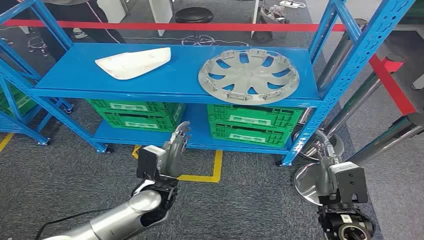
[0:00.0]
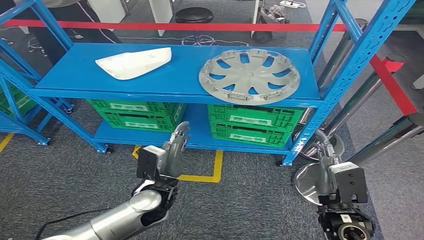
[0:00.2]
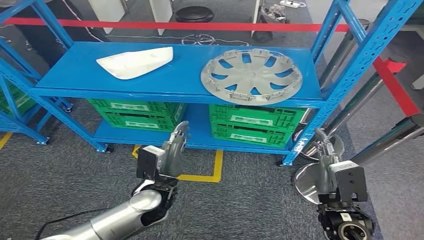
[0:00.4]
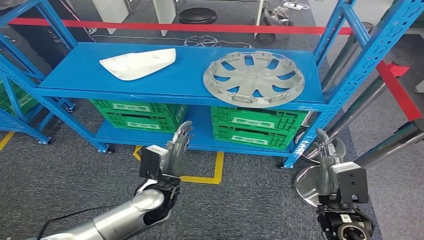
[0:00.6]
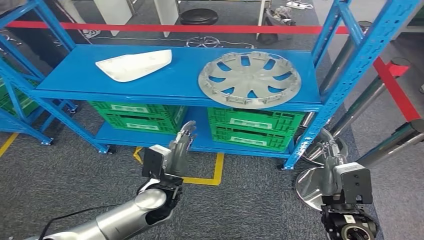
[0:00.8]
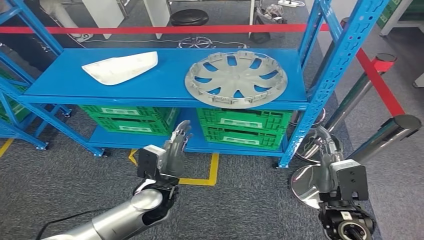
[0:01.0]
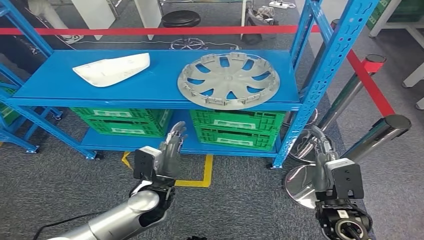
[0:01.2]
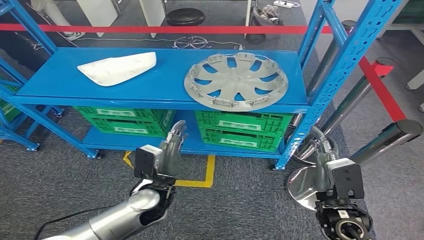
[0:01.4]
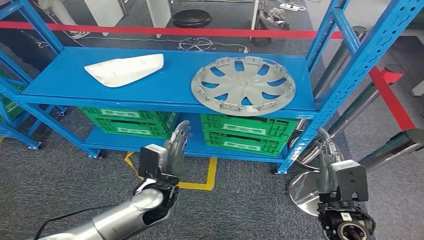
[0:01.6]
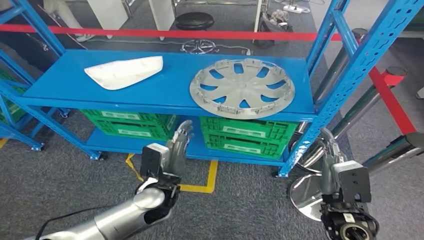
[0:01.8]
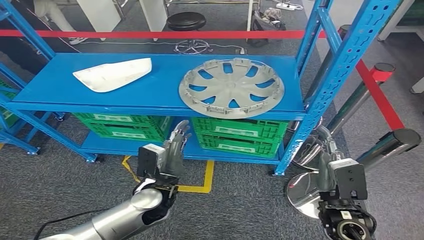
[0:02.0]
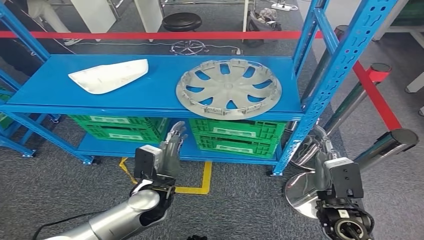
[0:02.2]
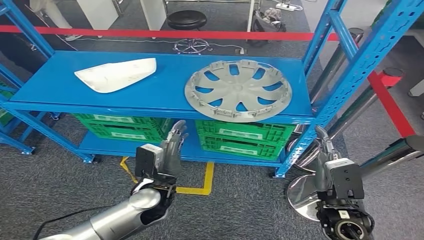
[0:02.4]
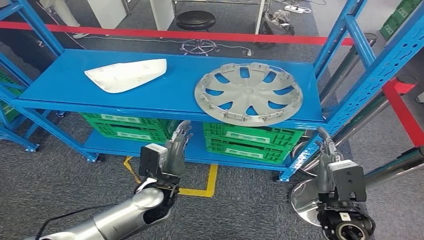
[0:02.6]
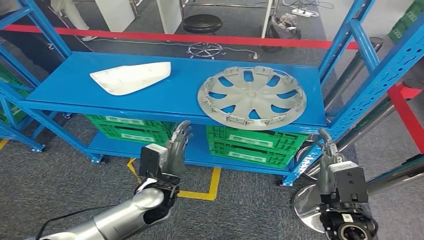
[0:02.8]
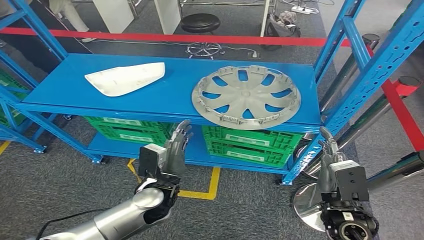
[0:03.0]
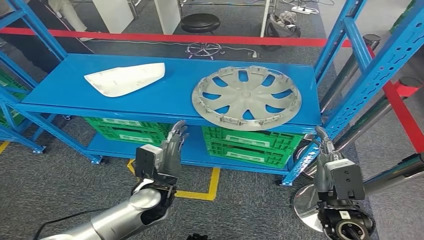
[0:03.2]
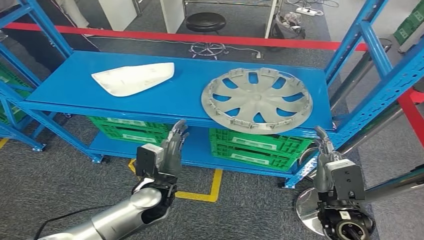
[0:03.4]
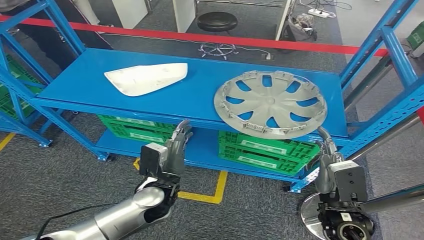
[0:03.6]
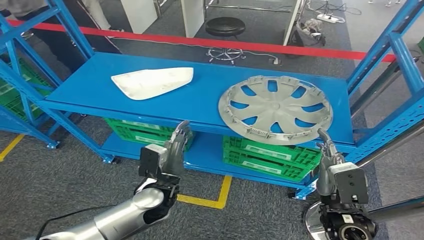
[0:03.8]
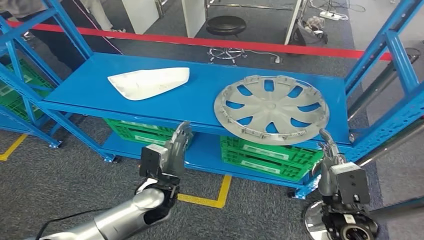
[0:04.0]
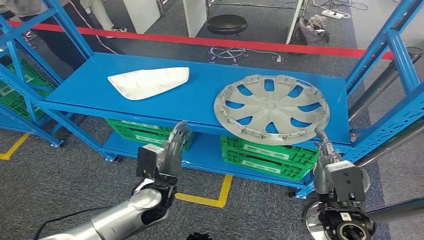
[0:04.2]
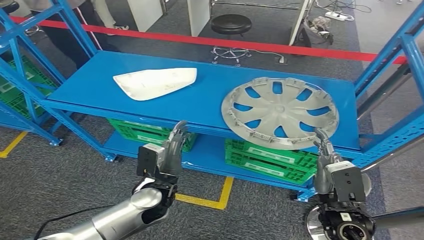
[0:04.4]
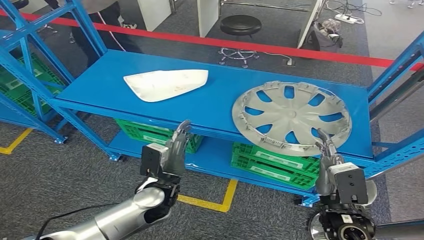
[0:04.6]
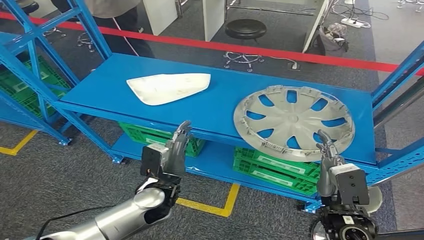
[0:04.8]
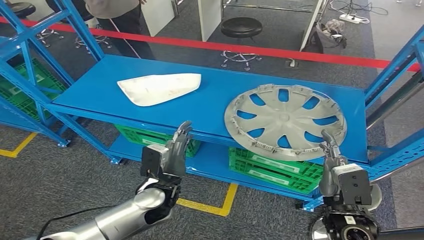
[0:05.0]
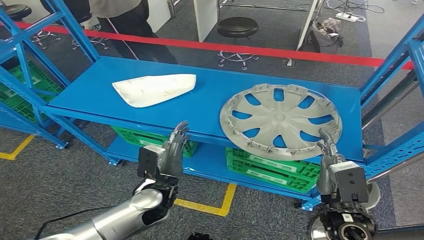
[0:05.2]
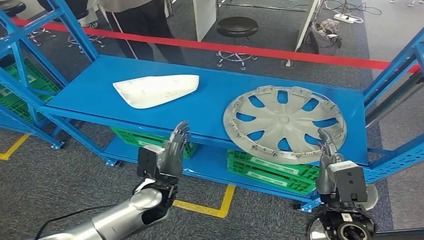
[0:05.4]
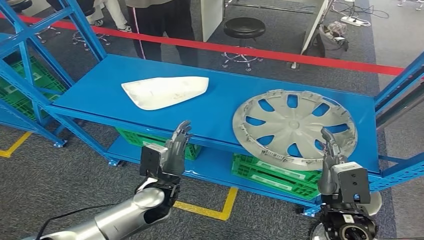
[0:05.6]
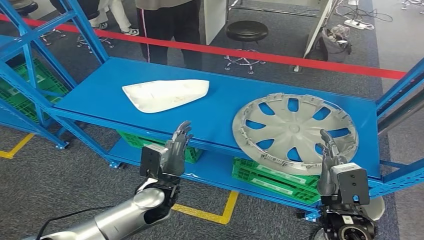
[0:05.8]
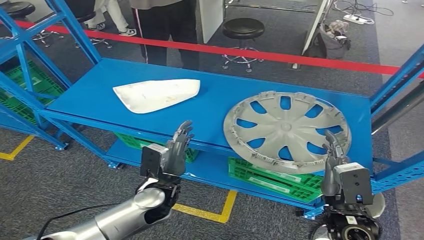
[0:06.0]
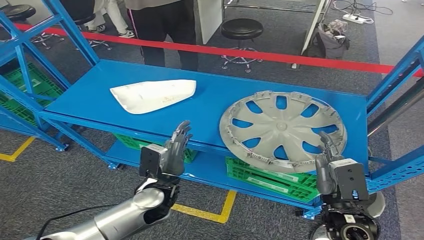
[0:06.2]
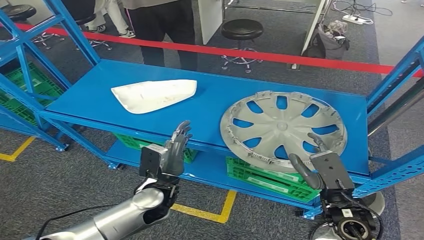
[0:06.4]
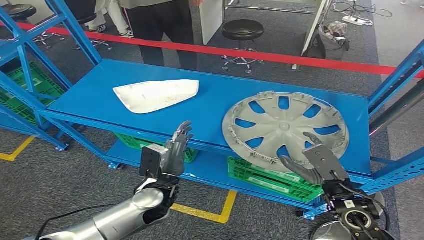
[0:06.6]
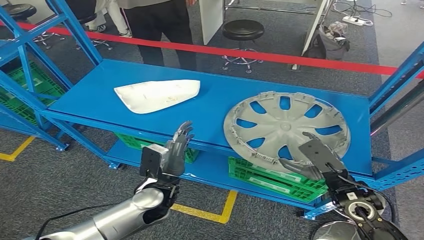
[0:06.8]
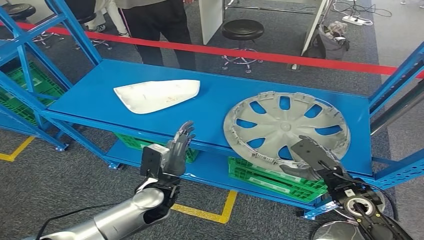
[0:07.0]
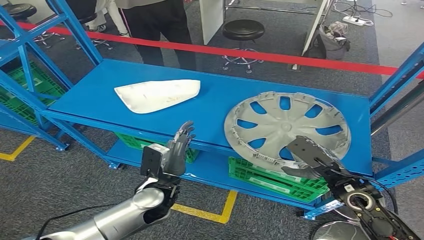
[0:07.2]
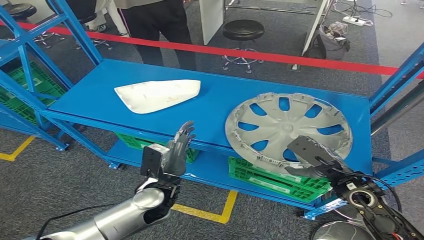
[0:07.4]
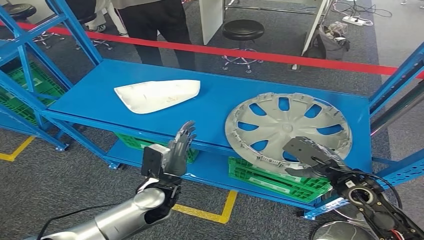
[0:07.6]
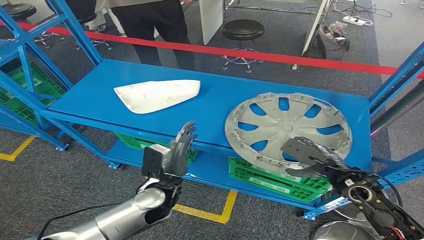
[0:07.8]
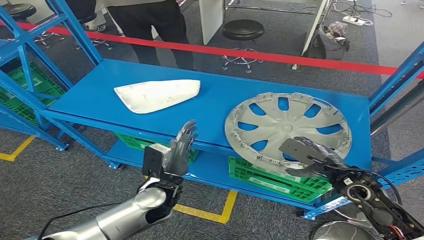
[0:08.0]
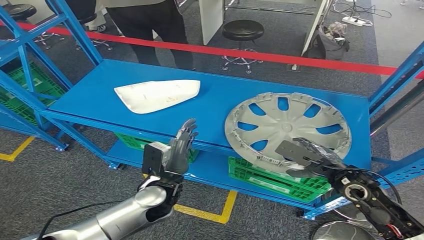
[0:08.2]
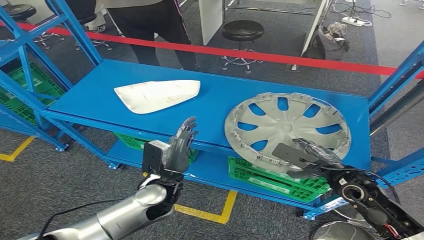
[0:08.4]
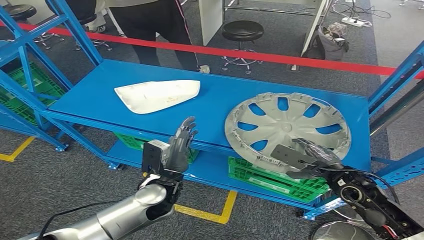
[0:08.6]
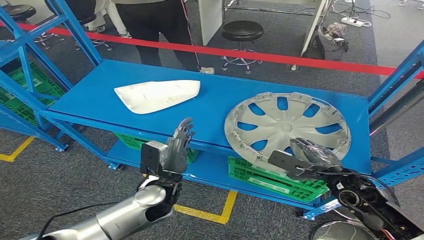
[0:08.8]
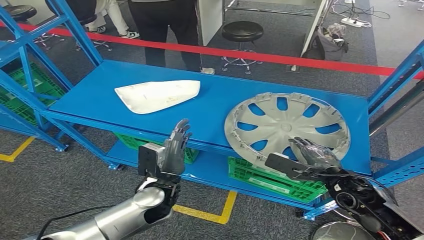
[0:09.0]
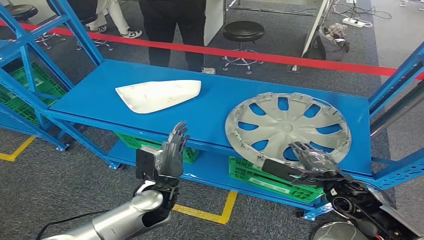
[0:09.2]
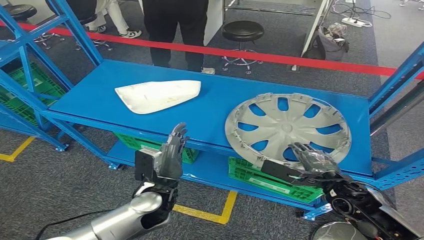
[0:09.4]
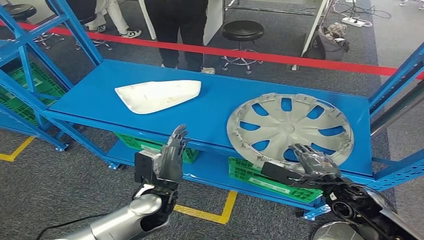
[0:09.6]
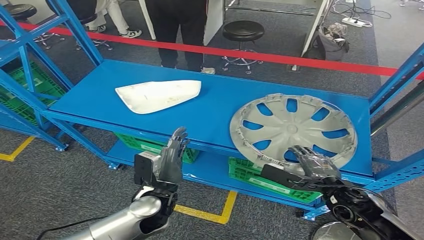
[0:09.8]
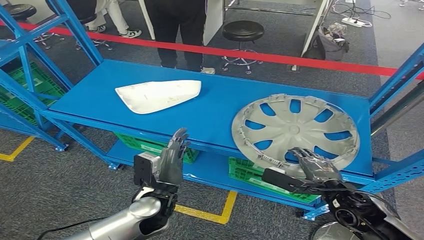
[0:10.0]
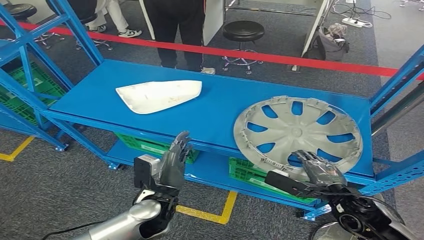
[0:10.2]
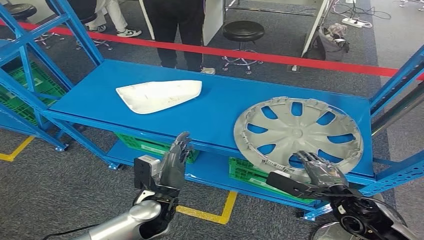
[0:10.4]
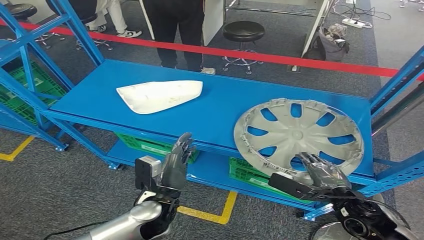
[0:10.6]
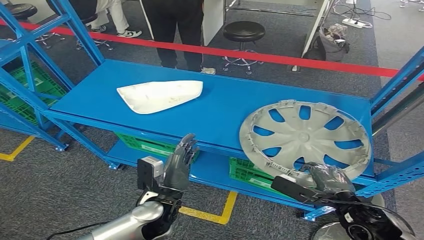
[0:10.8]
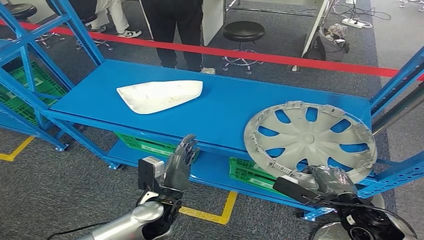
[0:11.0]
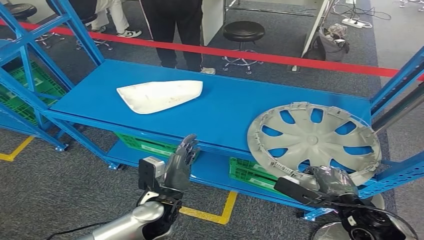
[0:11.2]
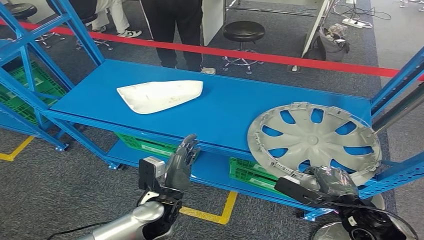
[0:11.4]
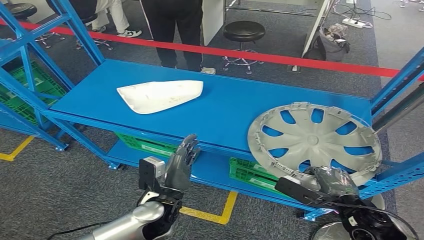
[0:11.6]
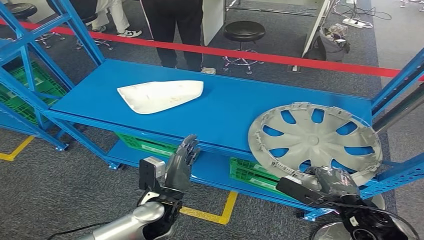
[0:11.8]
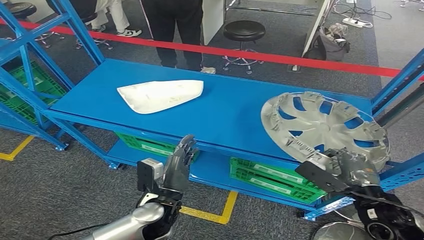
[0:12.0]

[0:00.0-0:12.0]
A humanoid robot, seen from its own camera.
0:06.0 to 0:07.6: The right hand is displaced forward by roughly 10 cm.
0:09.0 to 0:10.4: The right hand heads backward, covering about 5 cm.

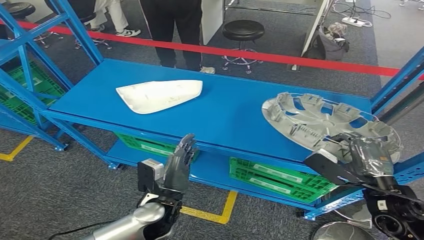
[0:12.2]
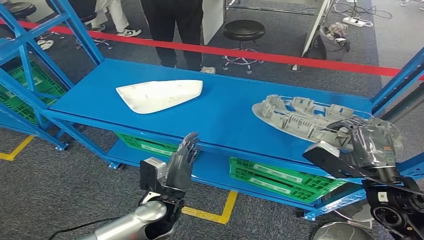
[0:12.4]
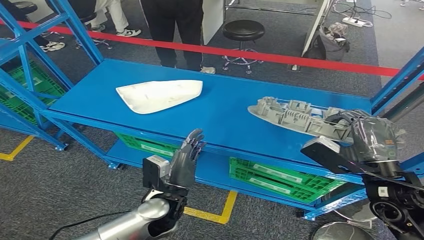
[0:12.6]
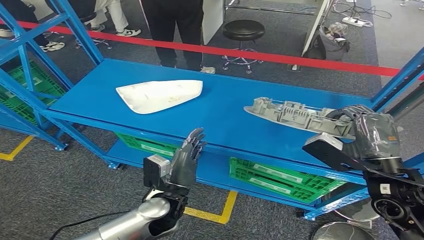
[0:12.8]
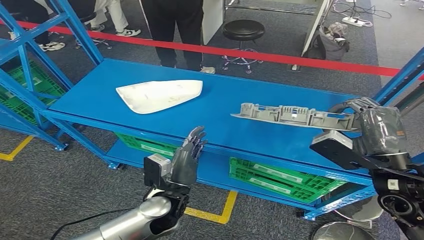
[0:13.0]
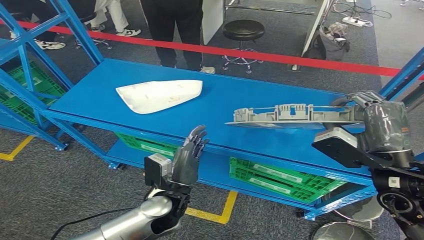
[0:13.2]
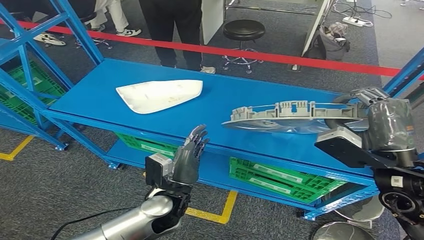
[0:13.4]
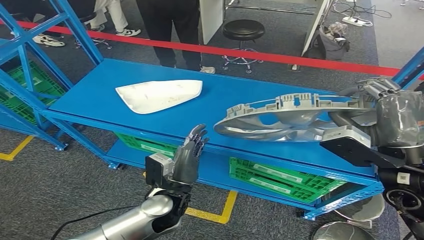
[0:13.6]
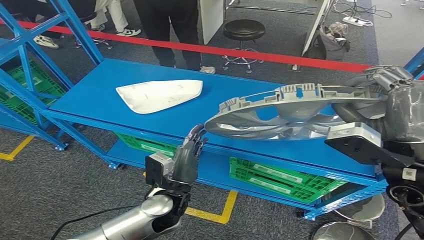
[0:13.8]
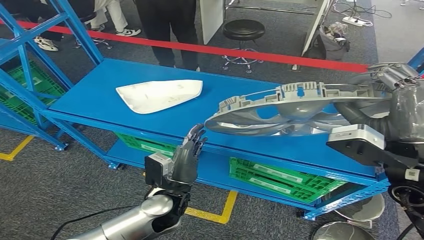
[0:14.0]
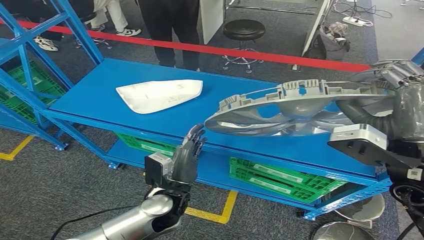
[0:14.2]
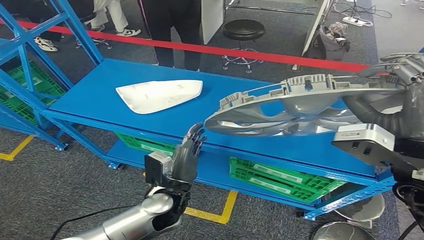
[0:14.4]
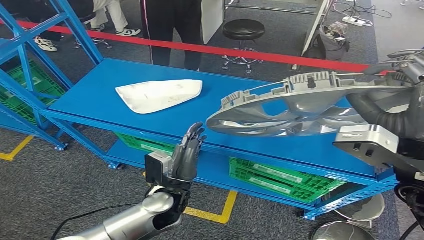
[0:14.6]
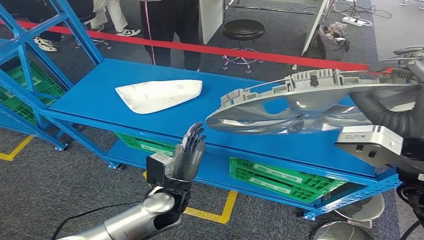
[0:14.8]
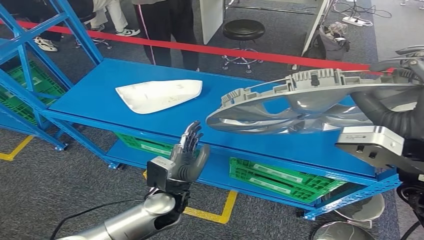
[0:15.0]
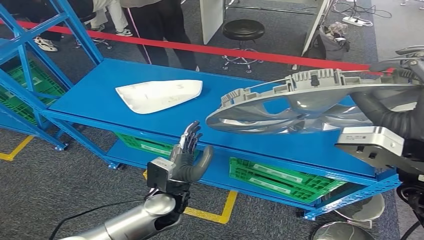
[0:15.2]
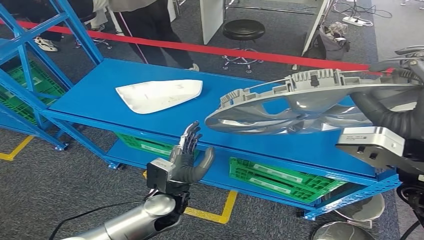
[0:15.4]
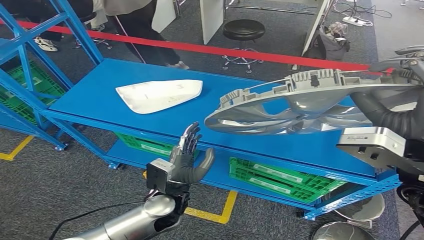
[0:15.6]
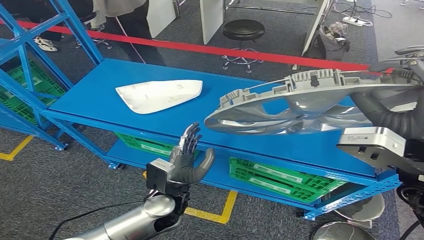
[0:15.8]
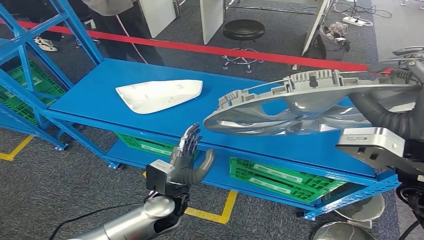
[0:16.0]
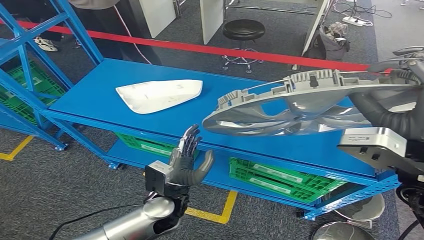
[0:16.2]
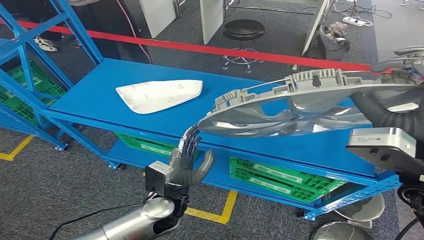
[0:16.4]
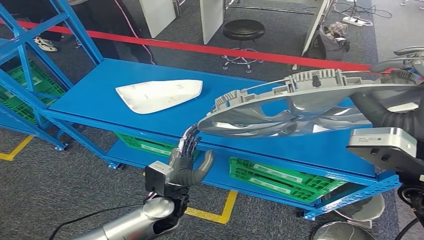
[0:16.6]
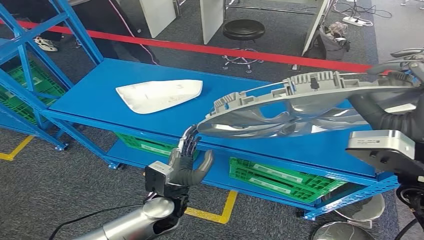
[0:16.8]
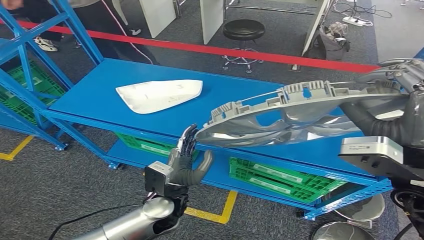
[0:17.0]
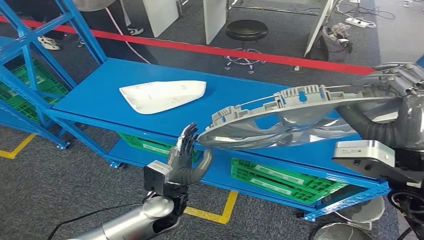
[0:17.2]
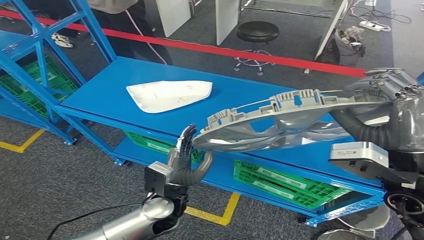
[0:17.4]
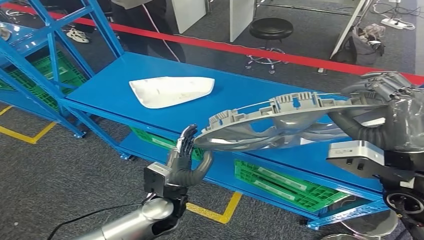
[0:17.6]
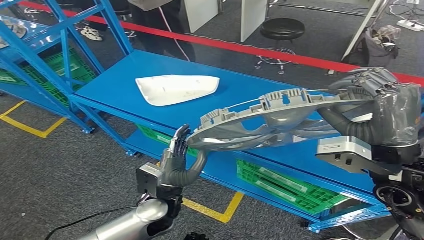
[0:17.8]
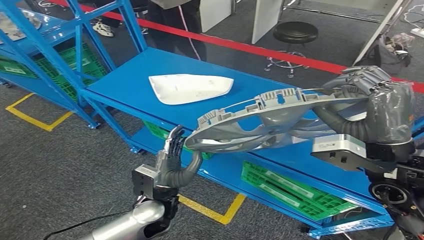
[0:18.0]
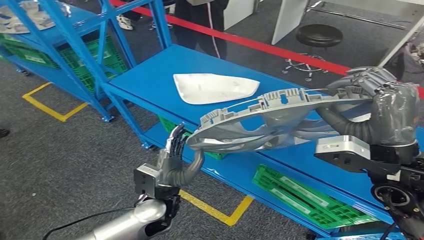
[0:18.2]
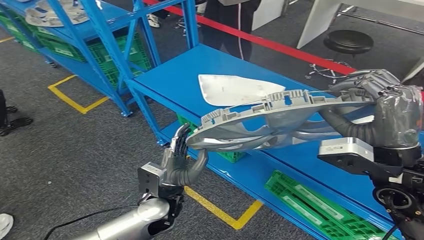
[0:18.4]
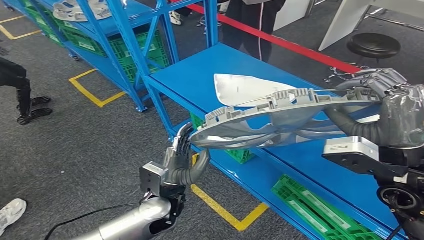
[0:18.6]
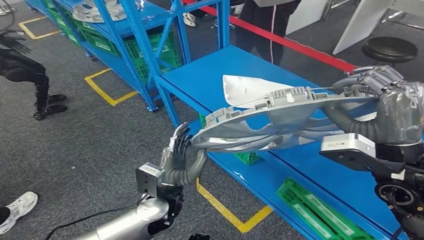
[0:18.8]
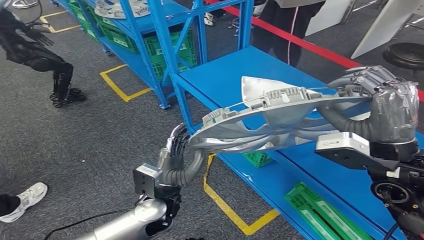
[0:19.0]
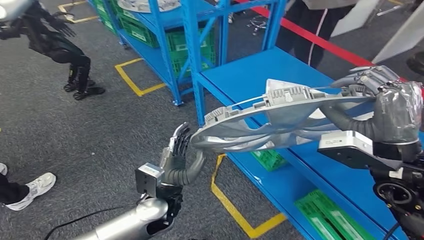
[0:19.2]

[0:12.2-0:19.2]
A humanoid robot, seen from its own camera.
Step, 0:12.2 to 0:14.2: Pick up the small component from the shelf.
0:12.2 to 0:13.6: The right hand is displaced upward by some 10 cm.
0:13.6 to 0:15.0: The right hand heads upward, covering approximately 5 cm.
0:15.0 to 0:16.4: Both hands stay put.
